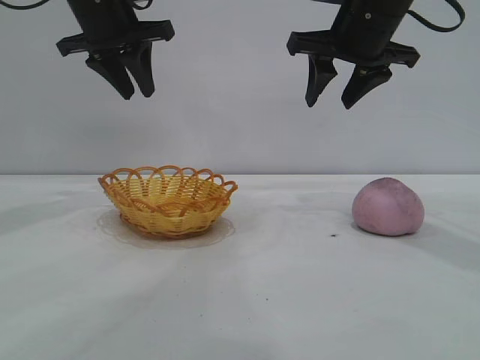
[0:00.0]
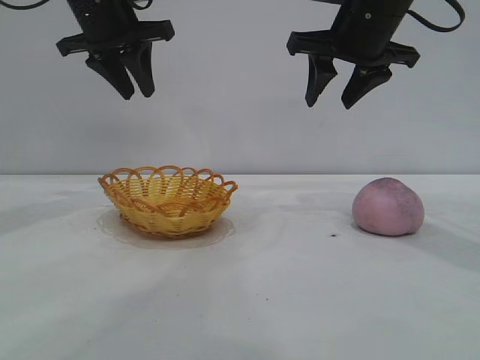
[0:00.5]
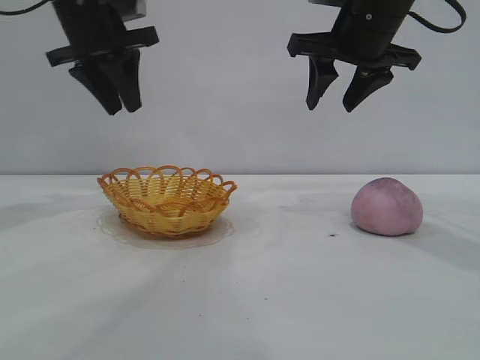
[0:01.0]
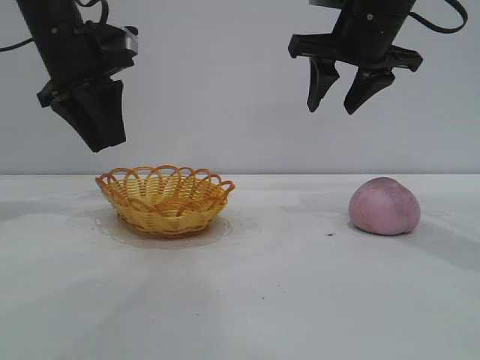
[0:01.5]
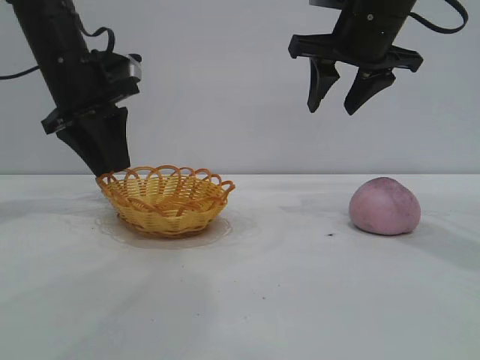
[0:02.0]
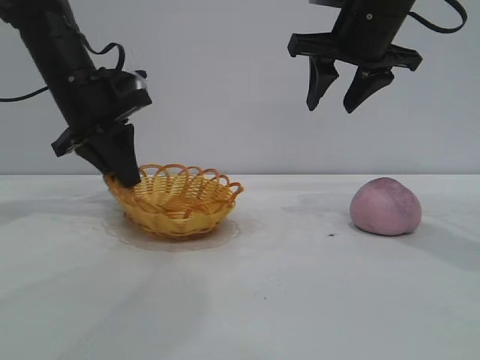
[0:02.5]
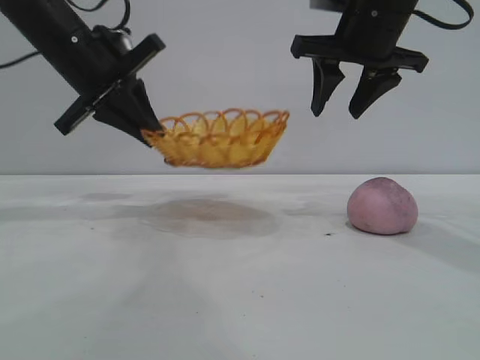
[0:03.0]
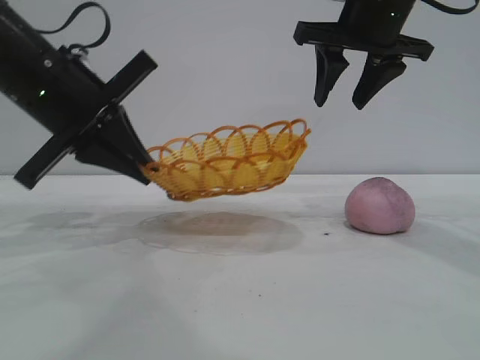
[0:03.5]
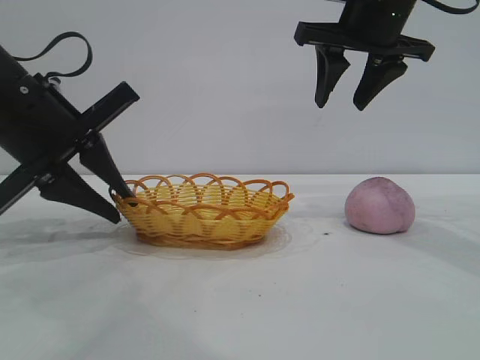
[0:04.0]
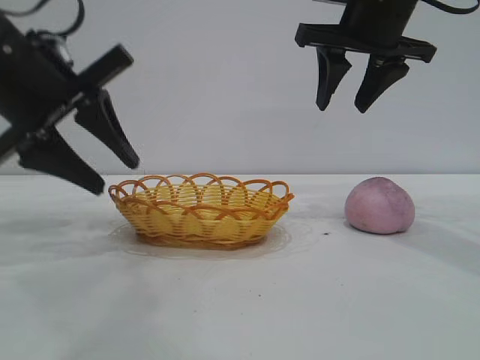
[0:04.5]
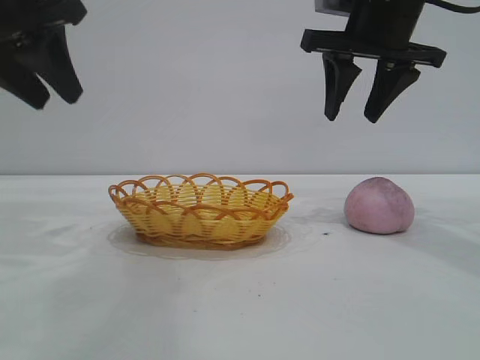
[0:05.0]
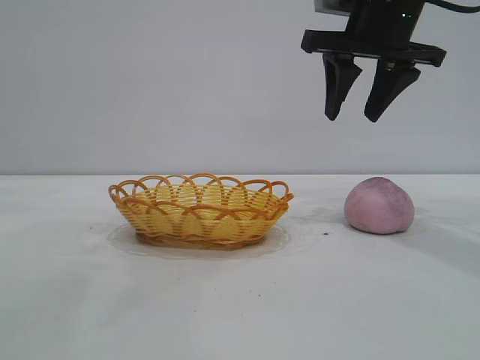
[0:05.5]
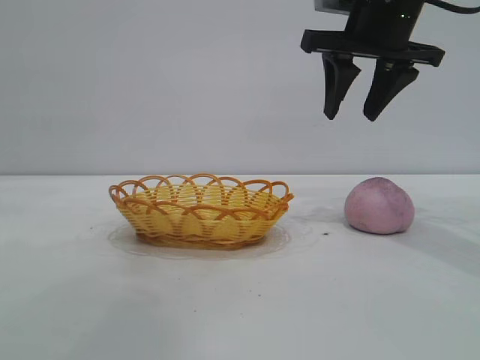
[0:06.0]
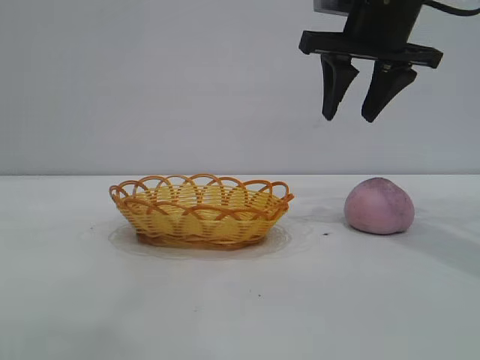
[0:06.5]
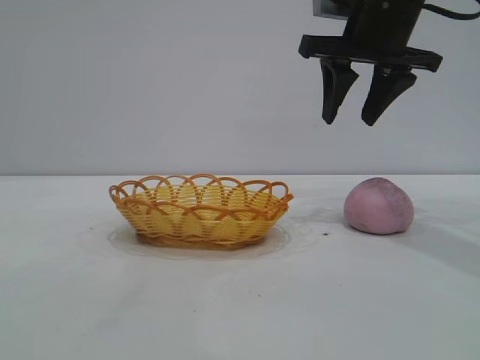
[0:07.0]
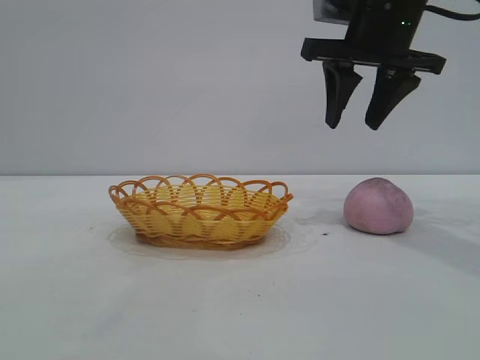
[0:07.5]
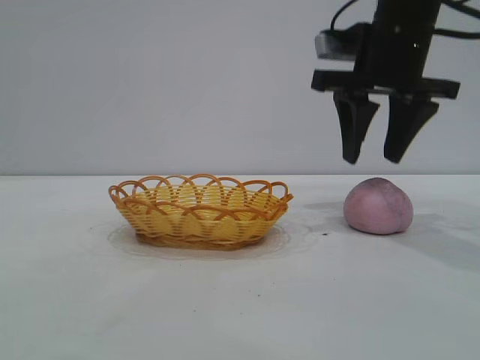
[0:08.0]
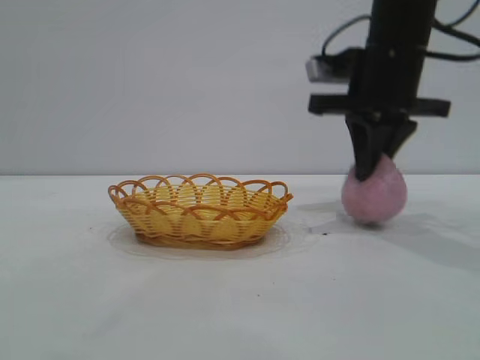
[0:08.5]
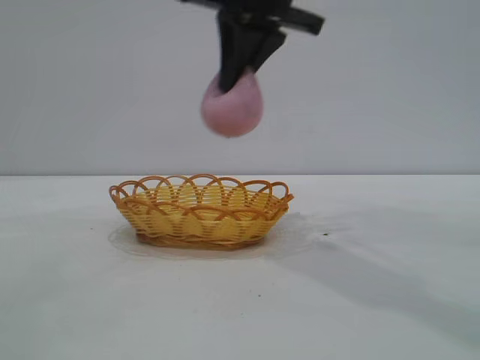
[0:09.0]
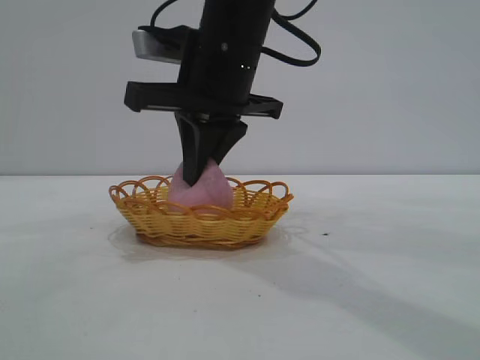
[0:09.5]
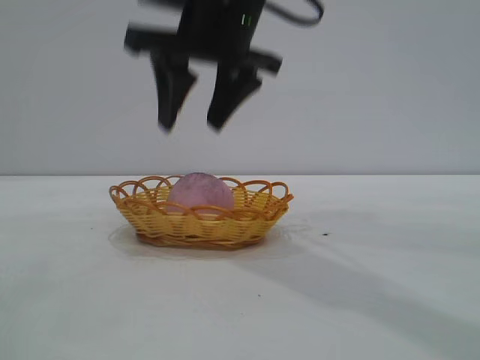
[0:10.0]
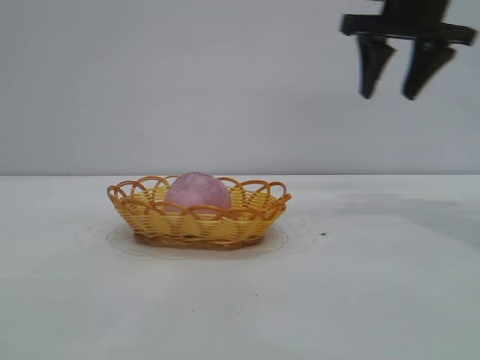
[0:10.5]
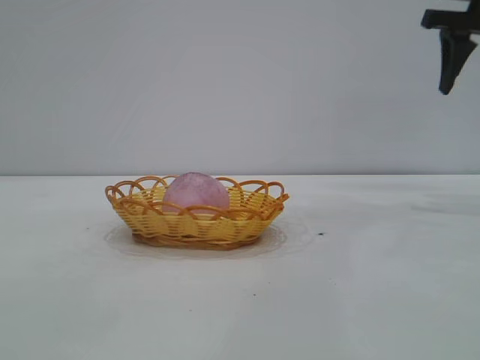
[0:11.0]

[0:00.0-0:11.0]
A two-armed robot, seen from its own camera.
Task of the whole recording: pick up the peach and put it into the basket.
Step, 0:00.0 to 0:04.5: Move the basket to the center of view.
Step, 0:05.0 to 0:08.5: Pick up the peach.
Step, 0:09.0 to 0:10.0: place the peach into the basket.

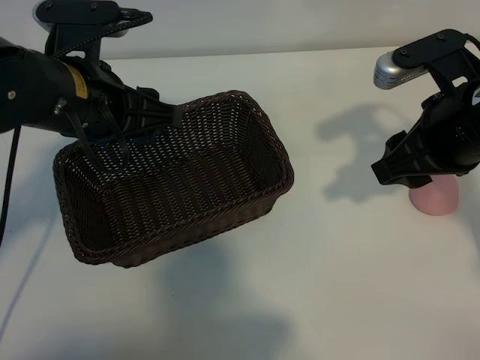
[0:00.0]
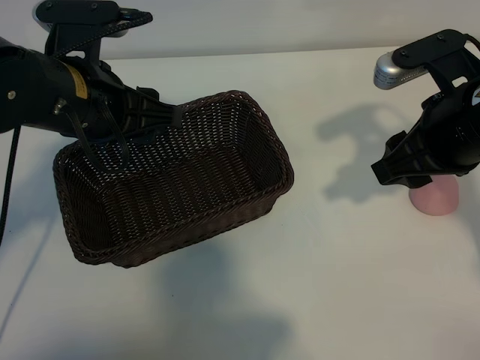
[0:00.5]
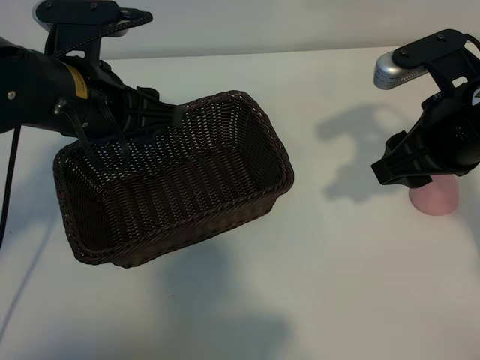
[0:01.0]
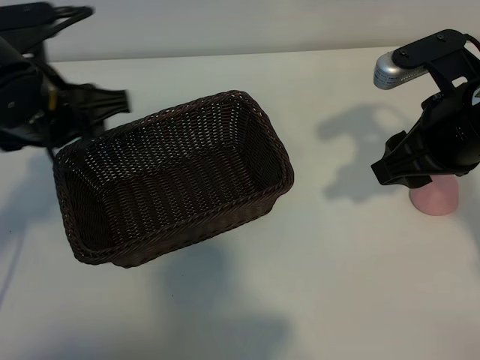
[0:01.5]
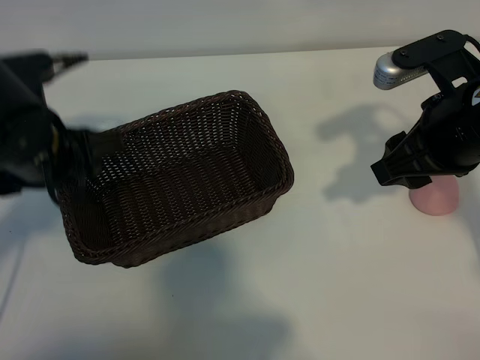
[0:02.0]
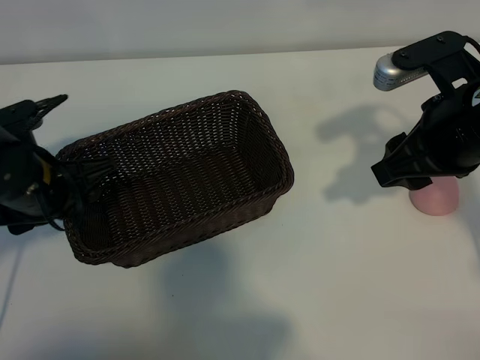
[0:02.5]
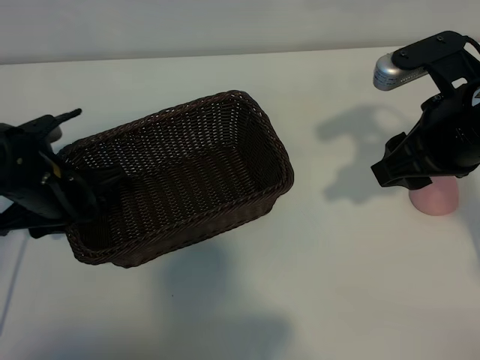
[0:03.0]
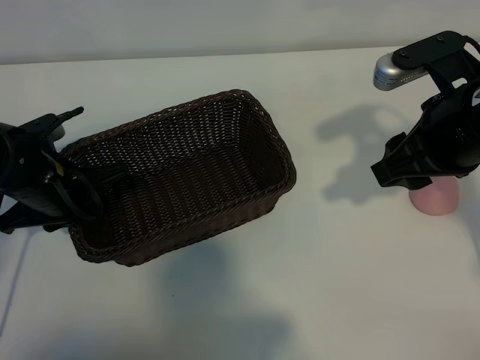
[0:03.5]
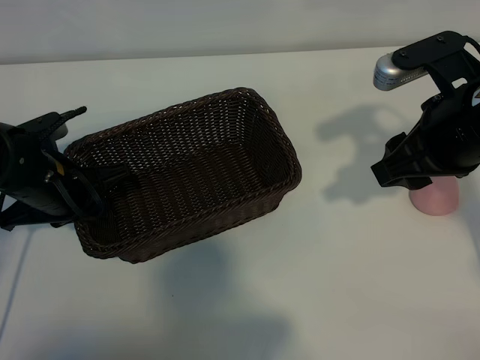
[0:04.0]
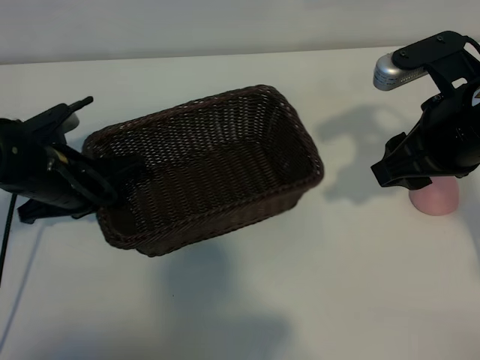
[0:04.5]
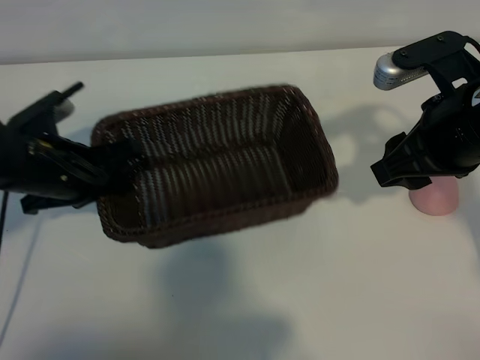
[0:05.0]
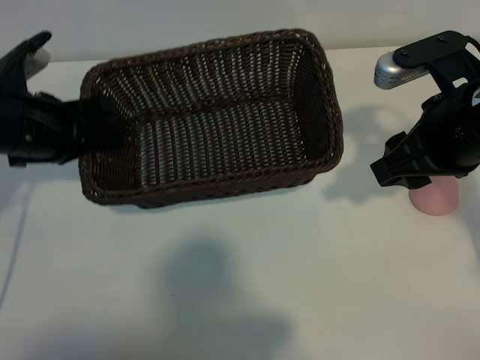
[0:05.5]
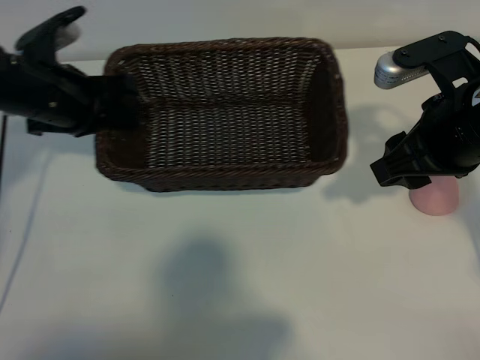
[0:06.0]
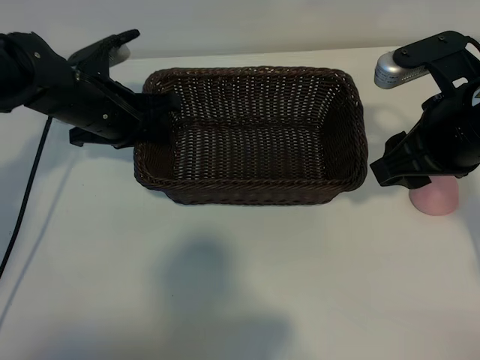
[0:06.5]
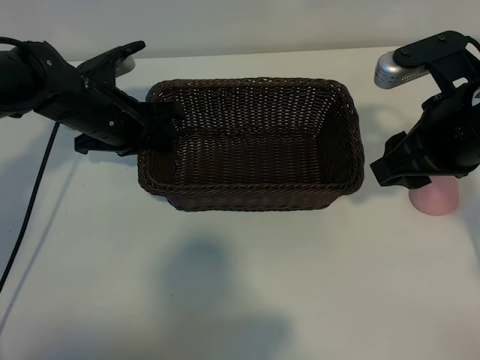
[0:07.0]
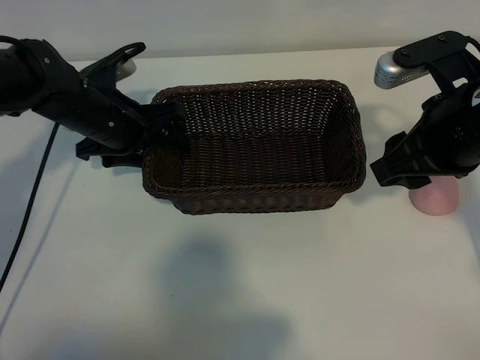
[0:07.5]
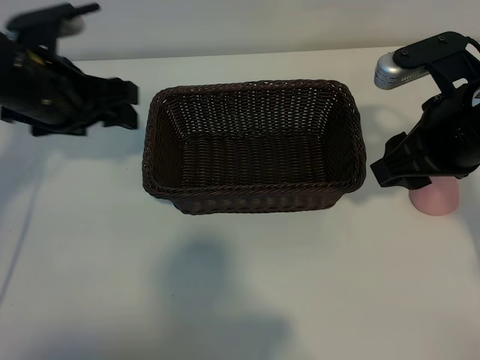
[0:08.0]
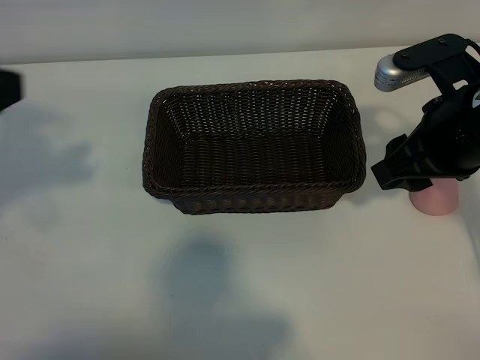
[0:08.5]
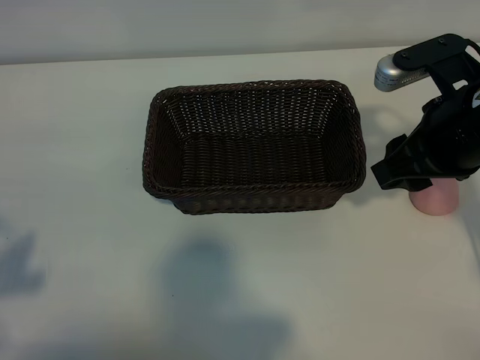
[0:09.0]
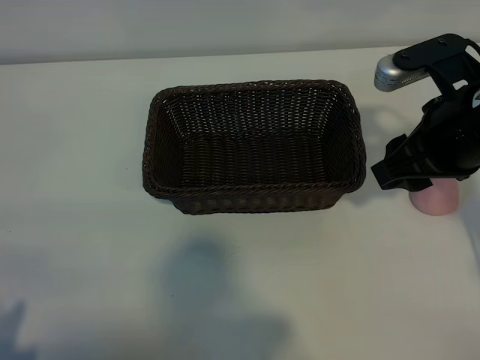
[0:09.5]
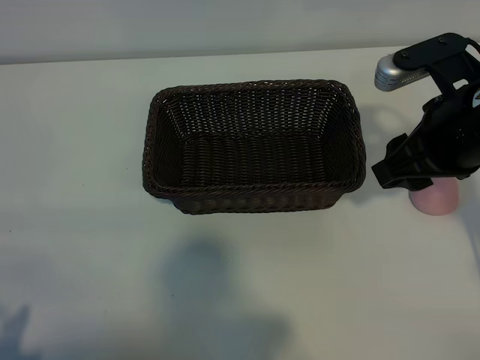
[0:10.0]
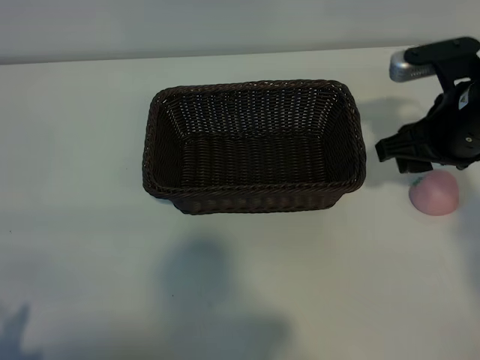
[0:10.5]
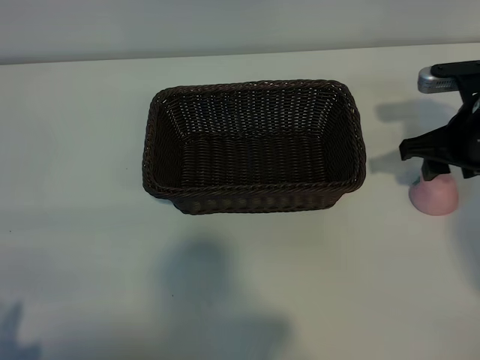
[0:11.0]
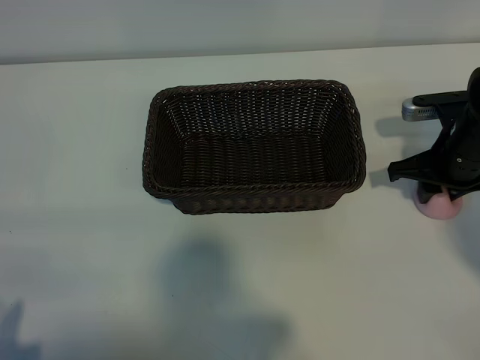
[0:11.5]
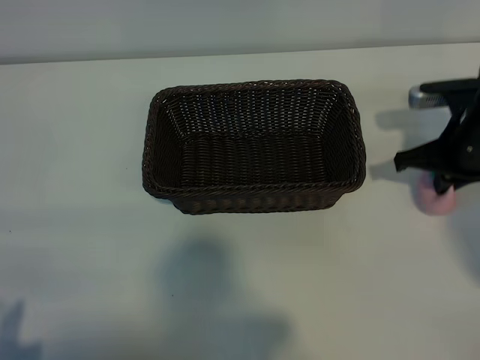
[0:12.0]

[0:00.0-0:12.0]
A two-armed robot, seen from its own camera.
Task of the whole recording: pick up the peach and put it into the basket.
Step, 0:01.5 to 0:03.5: Grasp the basket with left gripper.
Step, 0:04.5 to 0:07.5: Place the basket in the center of view with left gripper.
Step, 0:08.0 to 0:11.5: Grasp the peach with right gripper.

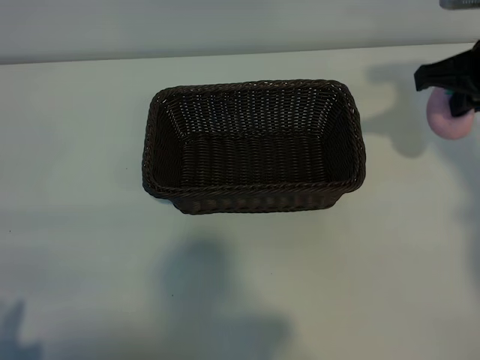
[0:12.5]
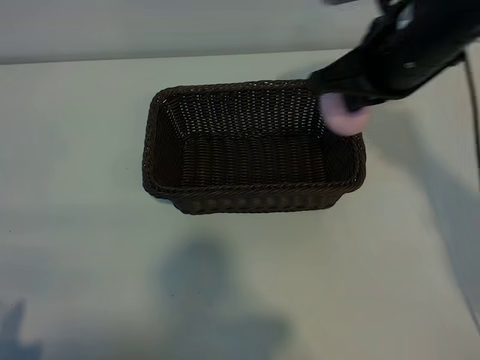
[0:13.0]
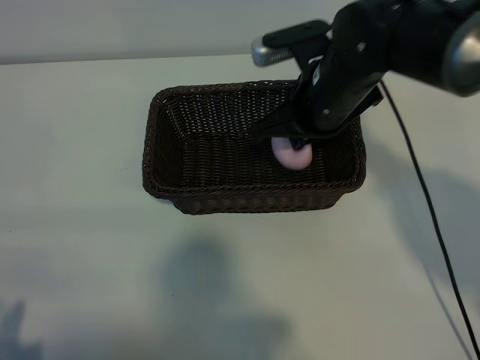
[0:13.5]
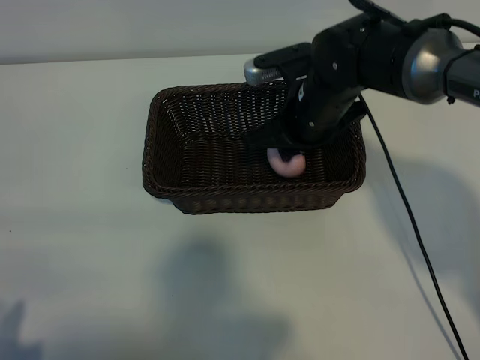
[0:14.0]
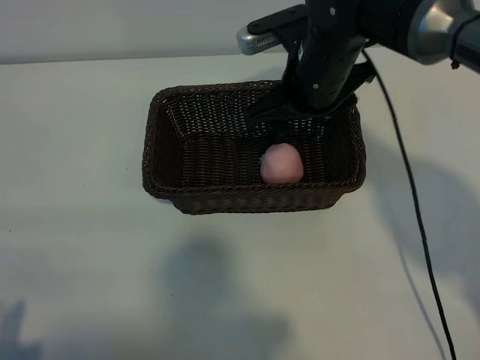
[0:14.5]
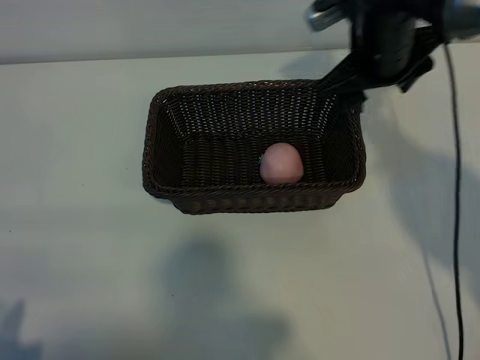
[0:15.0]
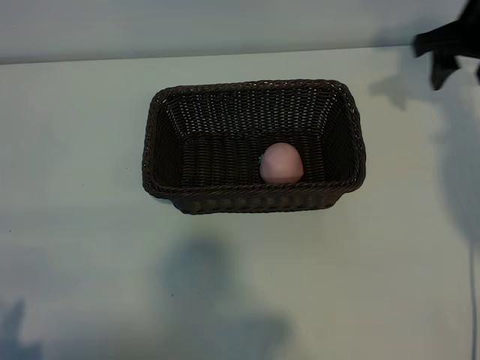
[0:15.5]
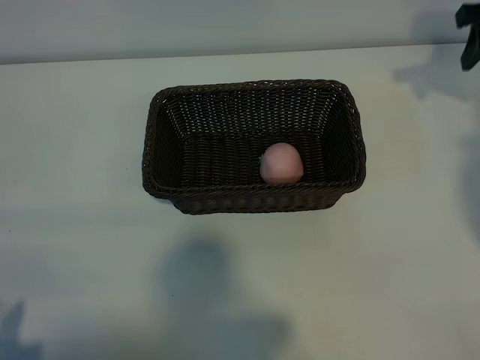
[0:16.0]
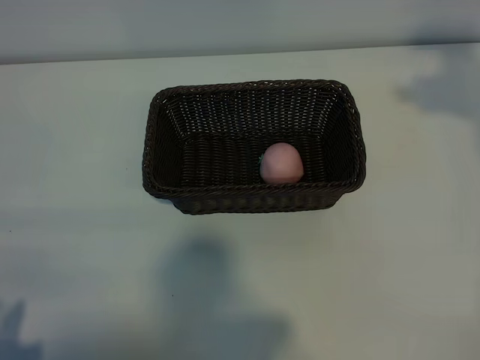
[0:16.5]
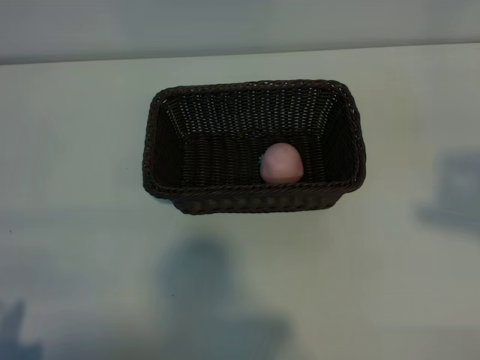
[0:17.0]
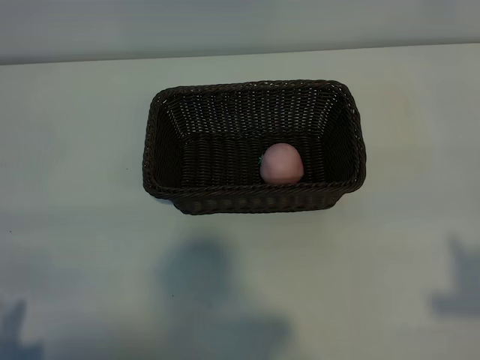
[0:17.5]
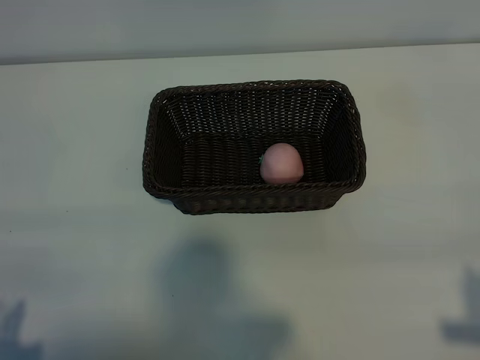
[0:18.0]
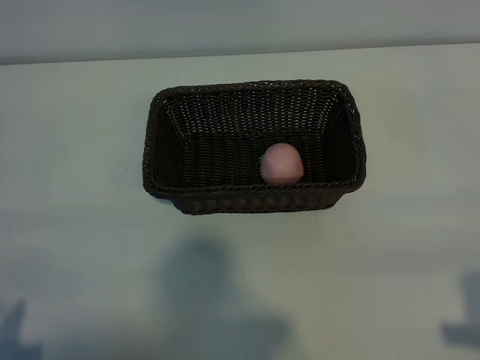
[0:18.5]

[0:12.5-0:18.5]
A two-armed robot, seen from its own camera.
Task of the whole recording: pick up the peach and put it into the basket.
Step, 0:12.5 to 0:14.5: Place the peach in the basket with right gripper.
